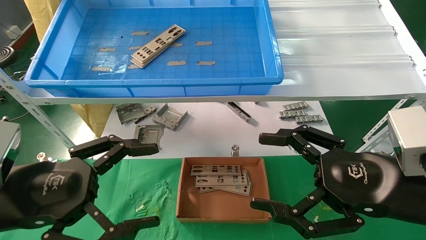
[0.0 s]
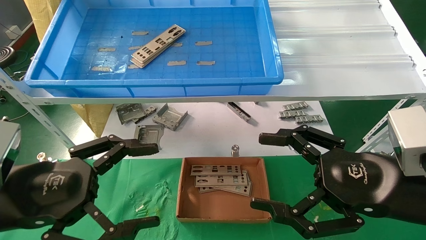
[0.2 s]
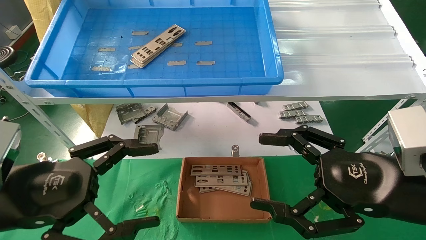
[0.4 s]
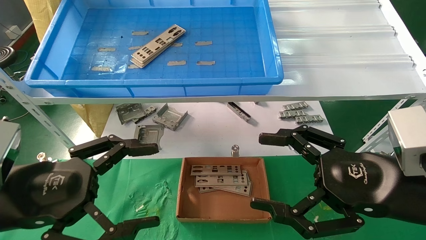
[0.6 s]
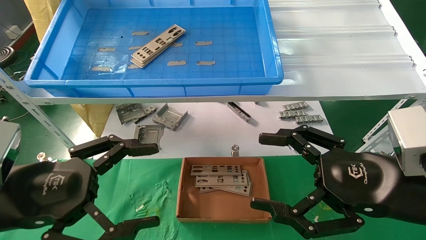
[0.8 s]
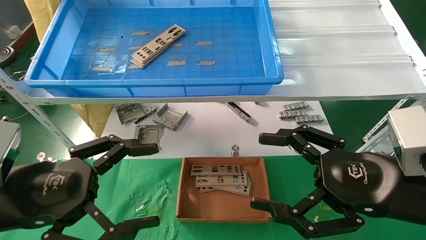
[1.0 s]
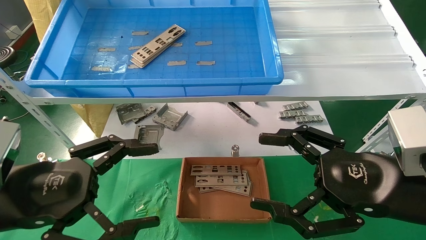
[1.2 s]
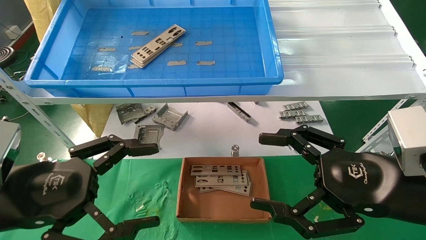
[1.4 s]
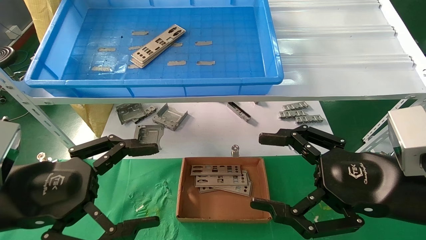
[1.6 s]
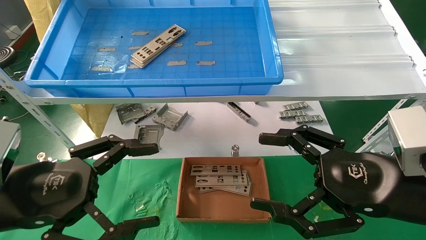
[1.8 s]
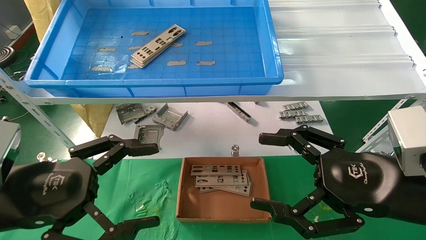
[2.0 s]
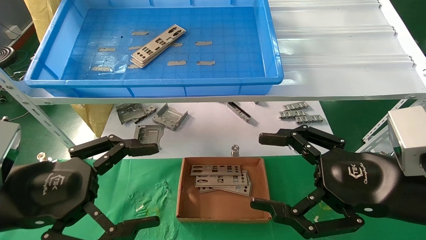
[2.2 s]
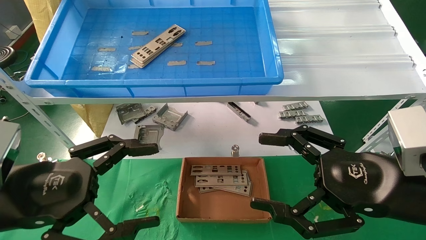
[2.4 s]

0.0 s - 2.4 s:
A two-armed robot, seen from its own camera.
Task of the whole recording: pick up the parts on the tray and put them in the cardboard box.
0.0 s - 2.4 s: Neither gripper changes place.

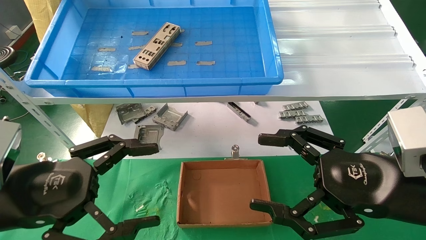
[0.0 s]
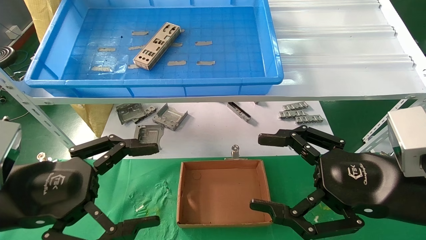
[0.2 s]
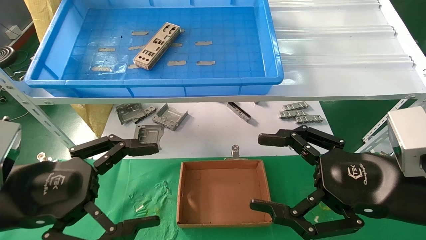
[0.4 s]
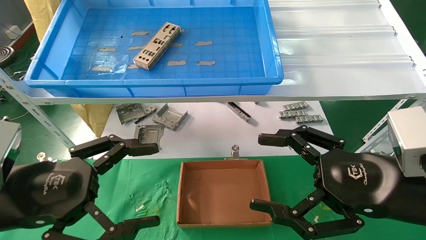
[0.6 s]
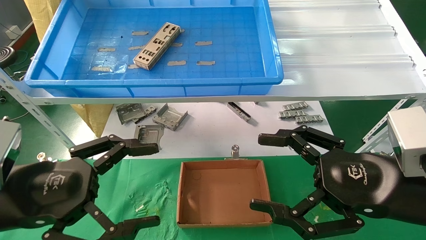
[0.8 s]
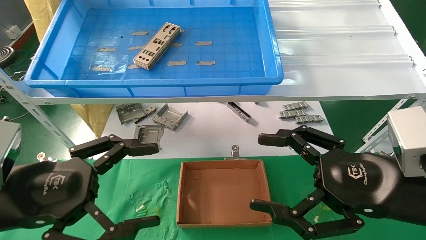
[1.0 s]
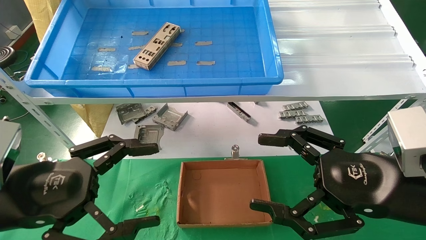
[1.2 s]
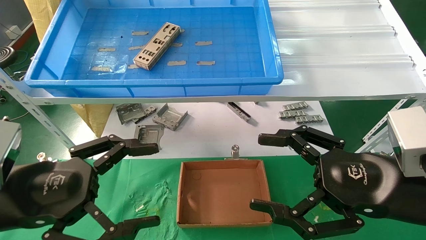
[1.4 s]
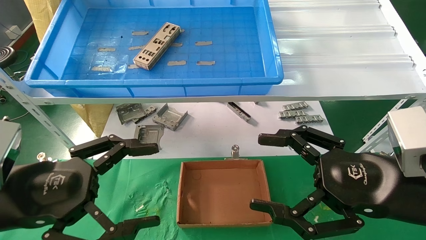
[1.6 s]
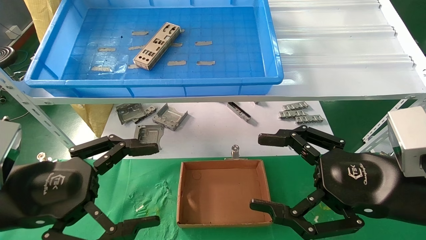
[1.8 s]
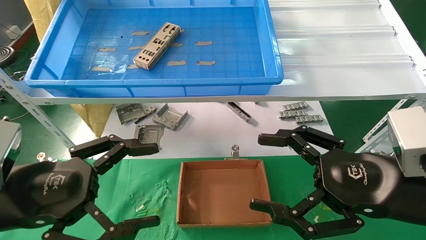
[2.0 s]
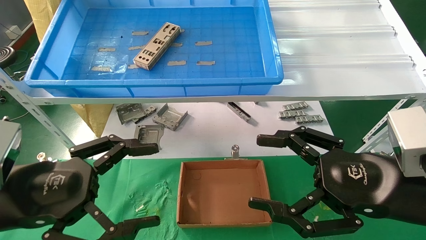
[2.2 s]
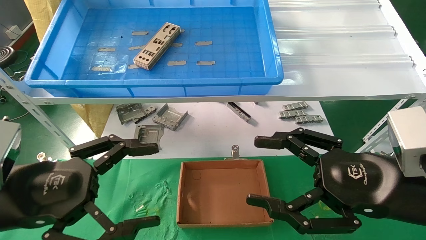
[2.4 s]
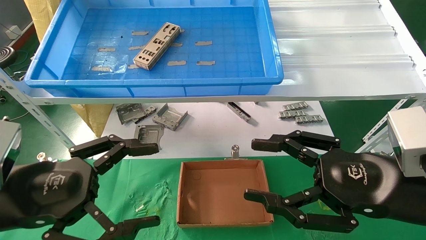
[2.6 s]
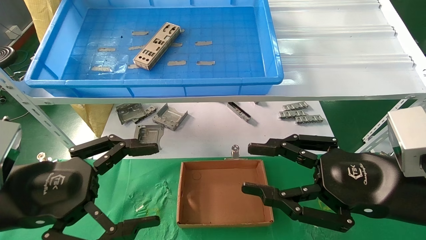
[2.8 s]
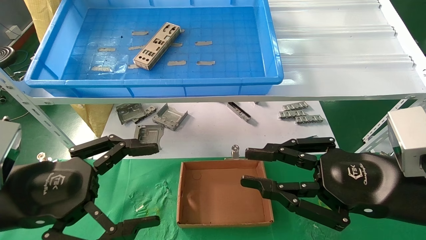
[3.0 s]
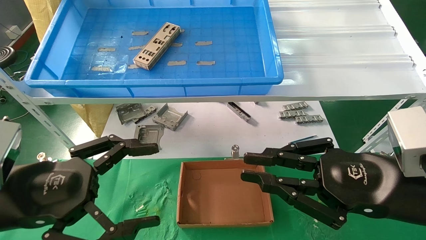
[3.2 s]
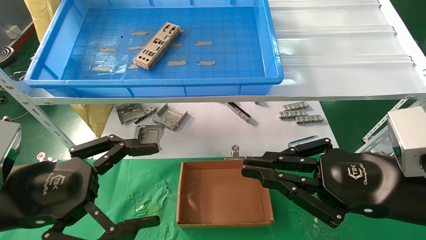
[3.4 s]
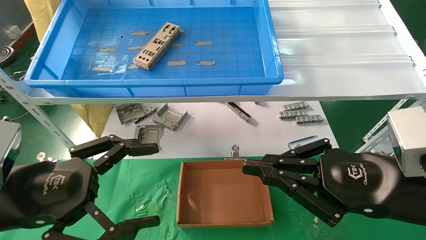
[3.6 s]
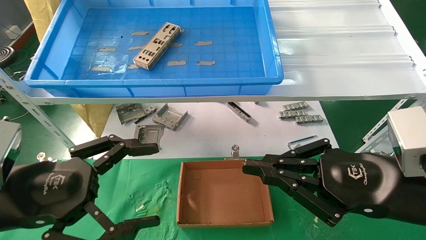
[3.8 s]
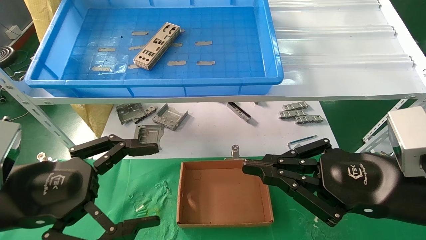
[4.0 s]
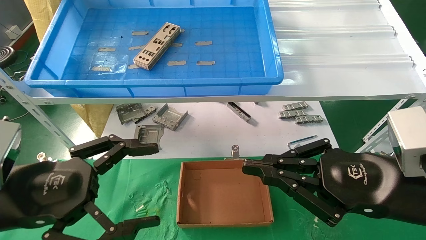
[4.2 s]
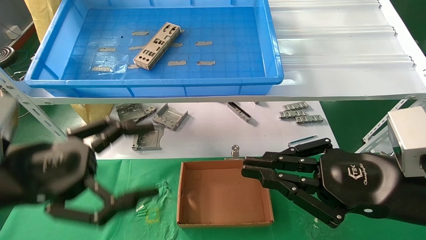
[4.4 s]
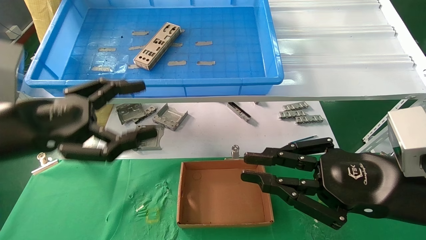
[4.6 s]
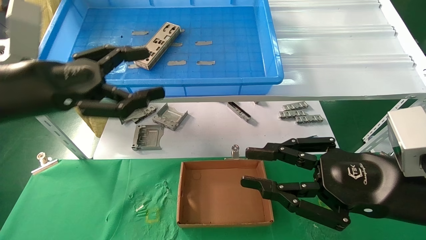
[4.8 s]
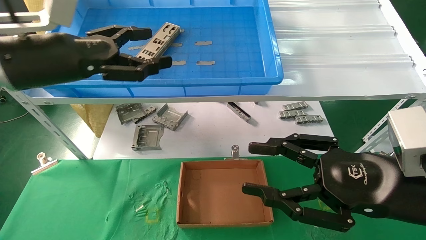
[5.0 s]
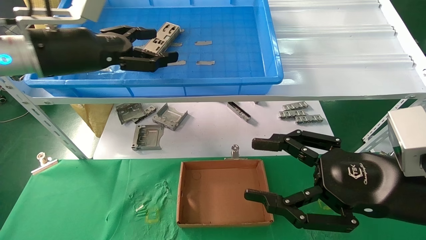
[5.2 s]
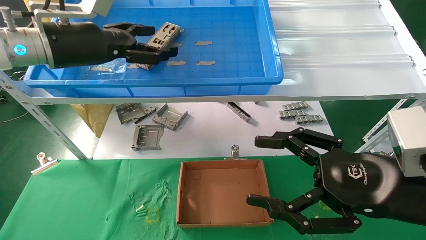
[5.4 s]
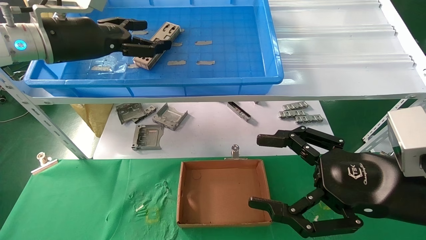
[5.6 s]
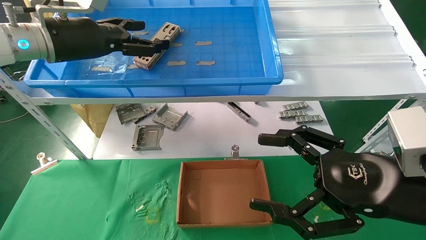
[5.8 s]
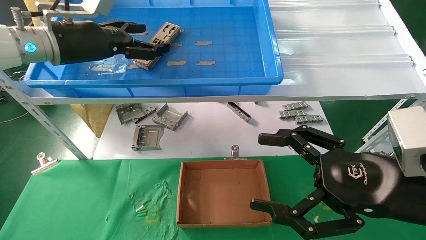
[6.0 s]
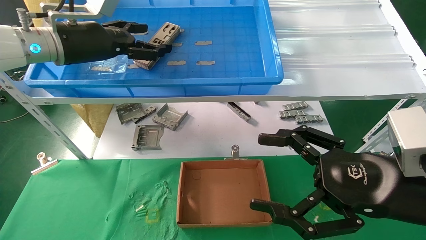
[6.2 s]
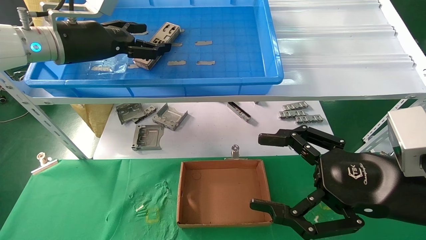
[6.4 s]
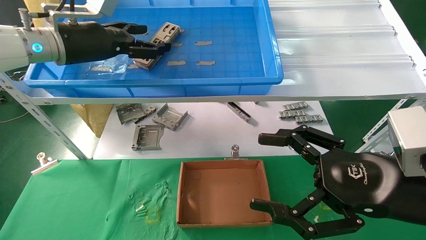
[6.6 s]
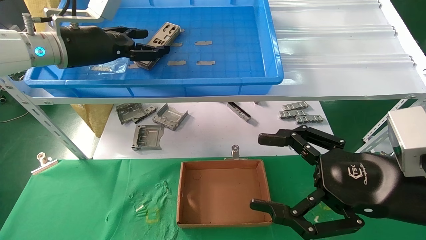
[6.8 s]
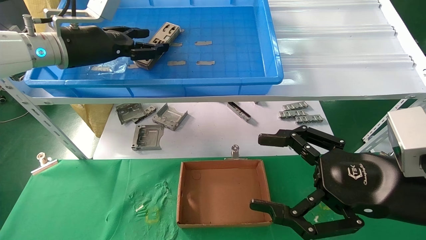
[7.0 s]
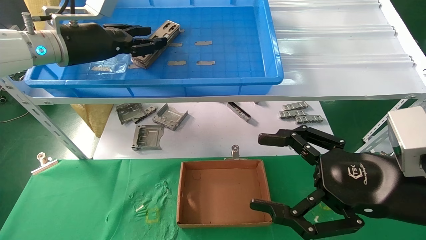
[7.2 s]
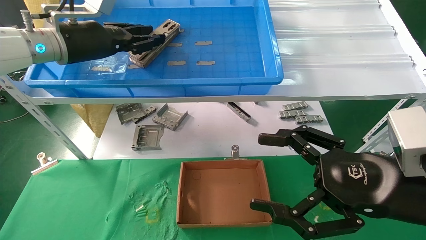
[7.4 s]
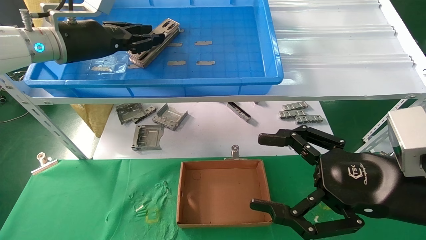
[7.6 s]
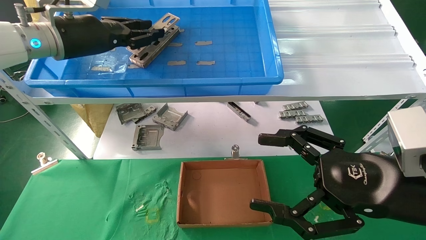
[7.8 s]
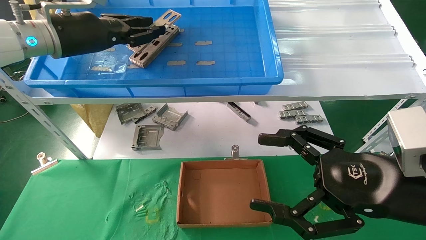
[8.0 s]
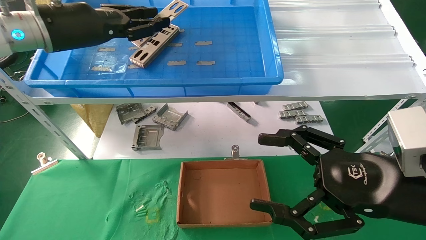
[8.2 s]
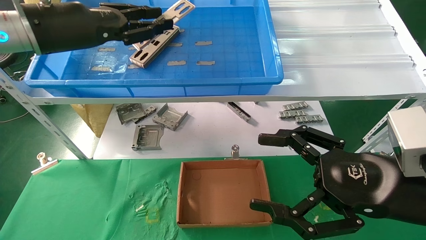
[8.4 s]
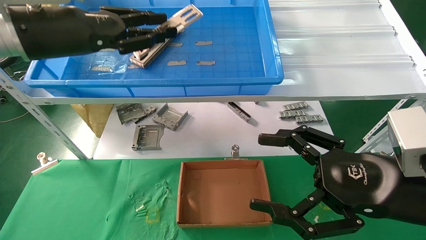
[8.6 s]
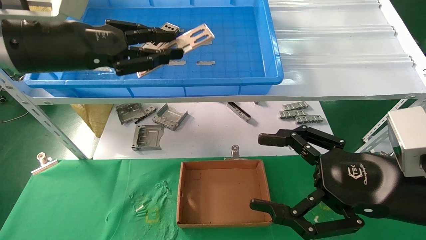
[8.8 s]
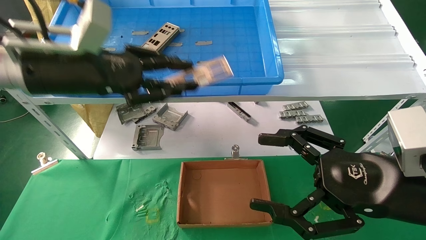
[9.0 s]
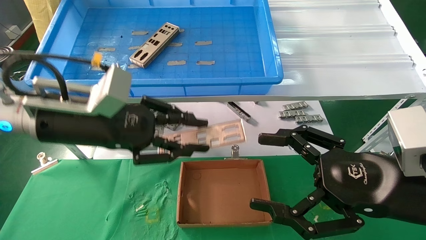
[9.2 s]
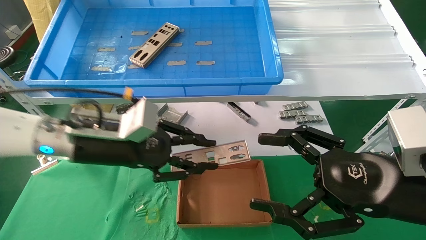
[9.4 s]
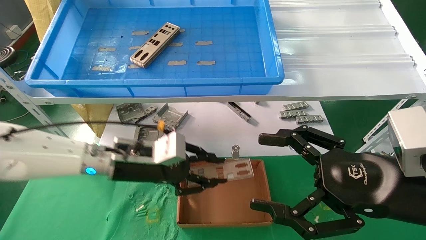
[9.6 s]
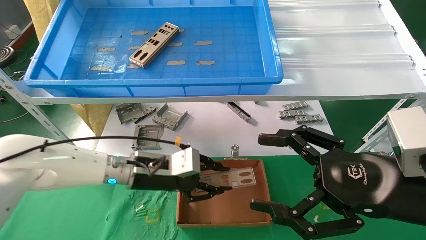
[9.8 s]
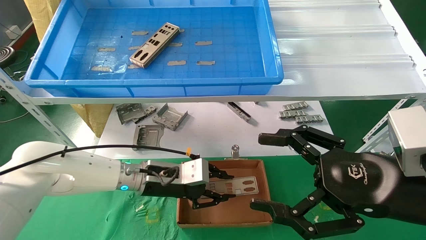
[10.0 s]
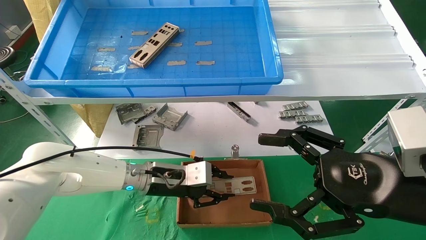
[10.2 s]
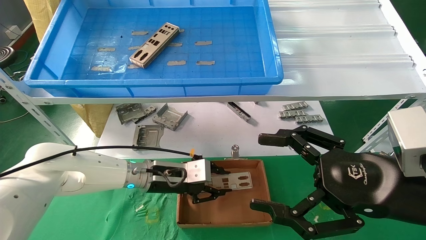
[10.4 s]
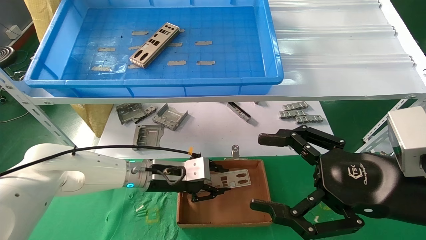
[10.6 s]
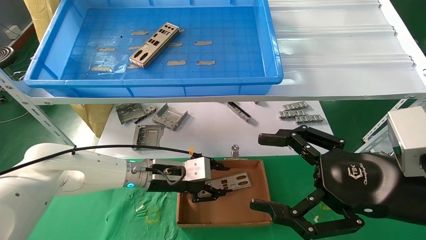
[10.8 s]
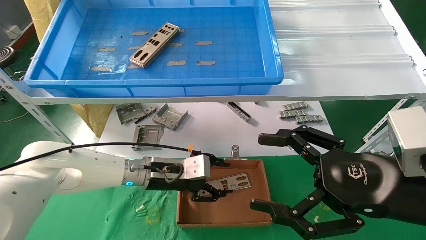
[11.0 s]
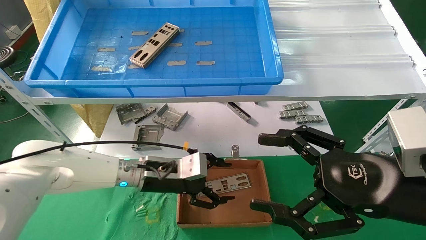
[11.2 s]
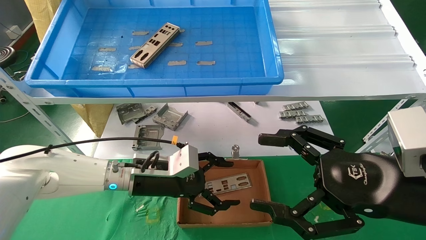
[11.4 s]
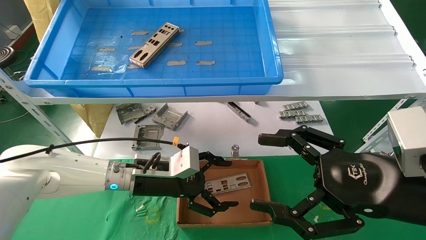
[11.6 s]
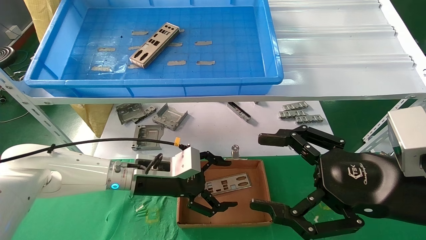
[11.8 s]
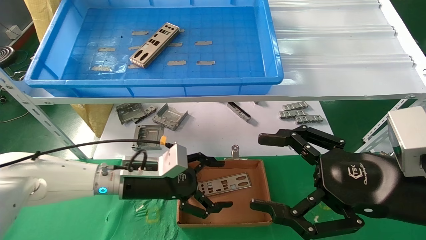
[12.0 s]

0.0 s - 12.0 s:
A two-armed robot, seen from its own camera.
Task of the whole recording: pick up the parts on the tray and put them in the cardboard box.
Step, 4.8 s - 7.6 s: Pick up the IO bracket from the container box.
Step, 7.8 s - 11.2 s: Place the IO bracket into the ingredient slot.
0.0 s - 1.6 s: Neither gripper changes place.
1.6 s - 3.0 s: The right gripper closes its fingers.
3.0 s - 4.4 s: The right gripper closes up.
4.4 s - 6.0 s: The right gripper opens up; the left gripper is displaced forward and upward by approximately 25 cm.
6.0 s - 7.6 s: The left gripper closes.
7.6 s - 9.0 s: The left gripper is displaced backward and downward by about 10 cm.
9.0 s - 10.4 s: The left gripper travels downward, to the right and forward by some 30 cm.
10.4 s - 12.0 s: The left gripper changes place by roughly 5 cm, and opens.

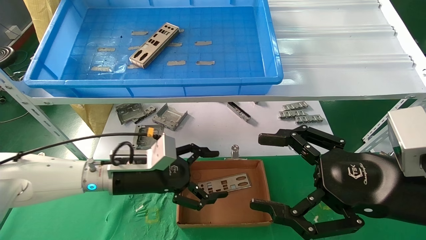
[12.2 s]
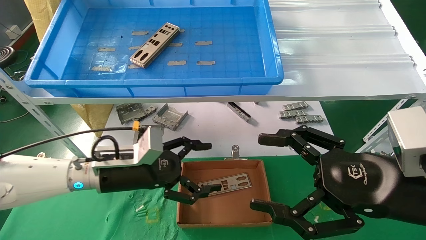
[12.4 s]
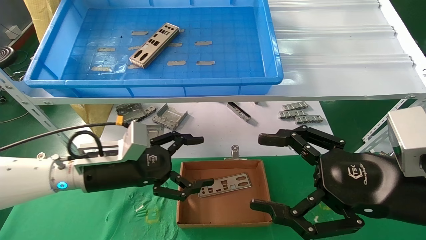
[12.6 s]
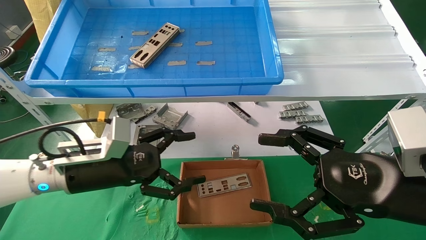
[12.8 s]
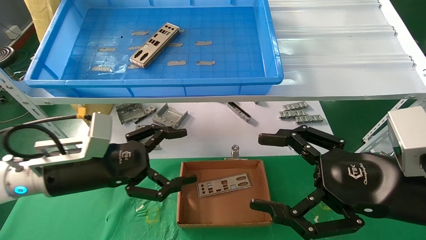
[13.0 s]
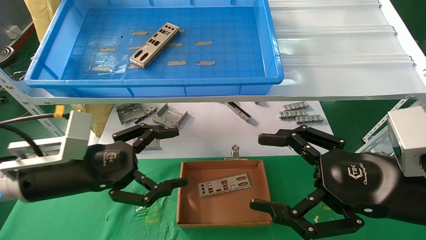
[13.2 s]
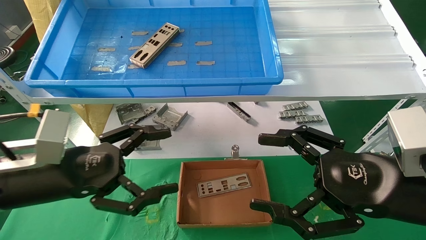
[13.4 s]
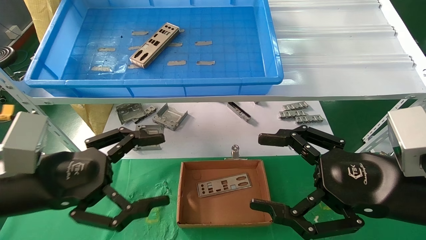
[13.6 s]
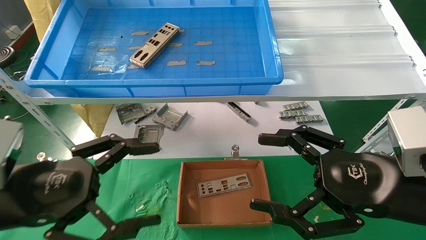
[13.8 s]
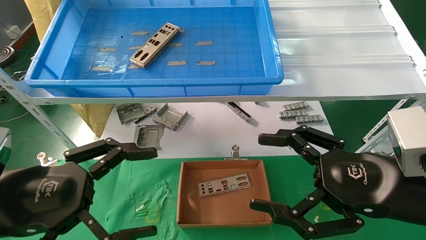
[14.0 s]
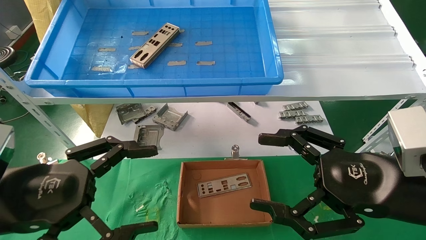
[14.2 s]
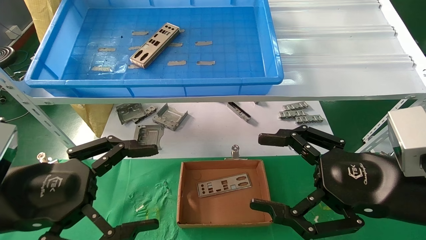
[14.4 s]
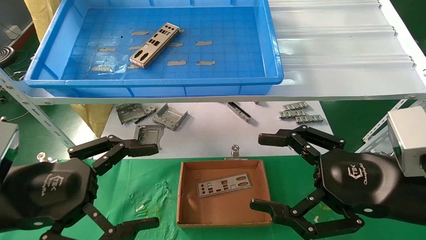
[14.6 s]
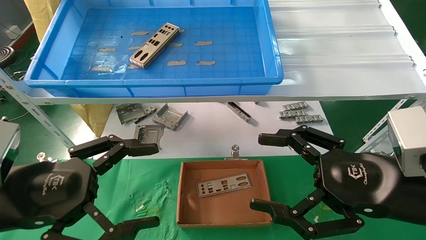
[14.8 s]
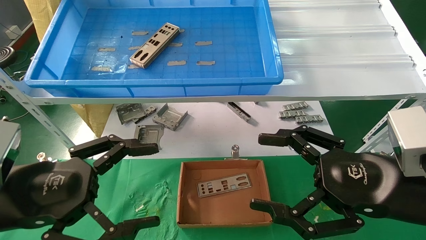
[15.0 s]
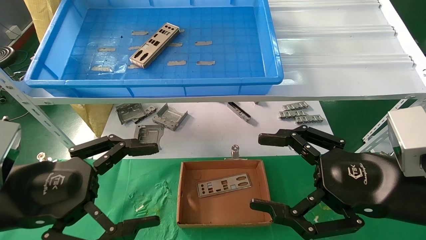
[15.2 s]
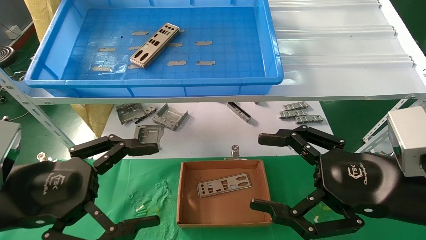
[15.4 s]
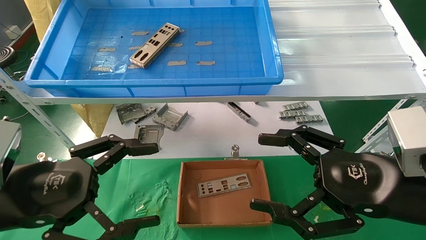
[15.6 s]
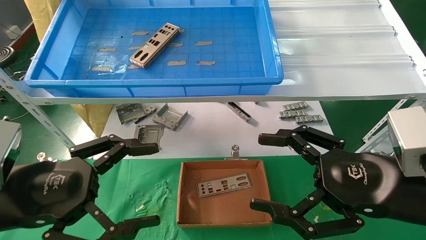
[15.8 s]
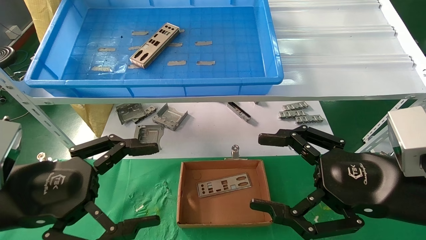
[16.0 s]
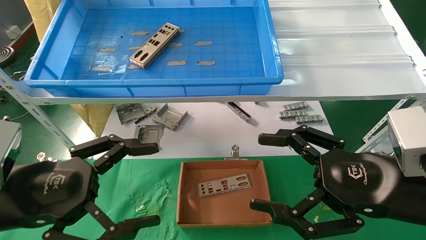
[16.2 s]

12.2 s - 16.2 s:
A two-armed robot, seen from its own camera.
Task of the whole recording: pick up the parts on the tray and put them in the cardboard box.
12.2 s - 13.6 s: The left gripper shifts approximately 20 cm backward, to the left and upward.
13.6 s - 14.8 s: The grippers make only small movements.
14.8 s - 16.2 s: The two grippers keep their place.
